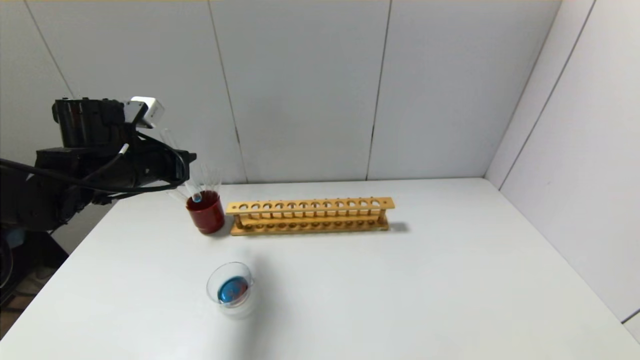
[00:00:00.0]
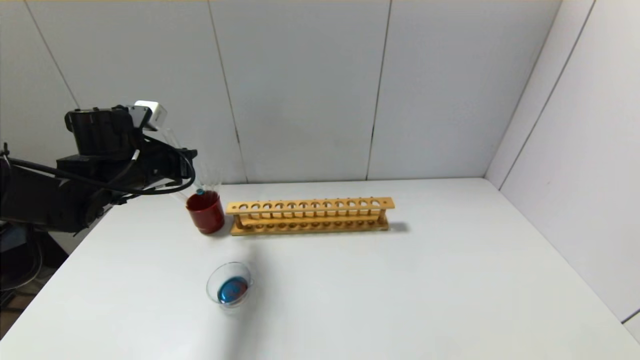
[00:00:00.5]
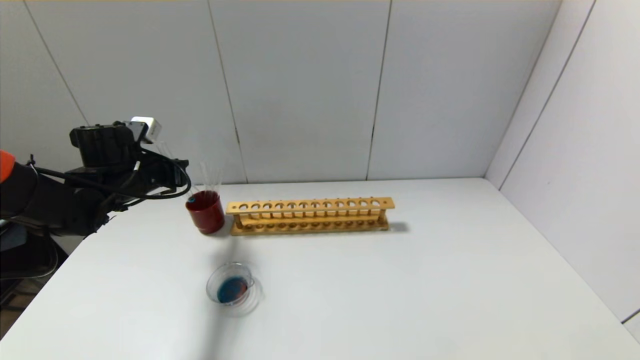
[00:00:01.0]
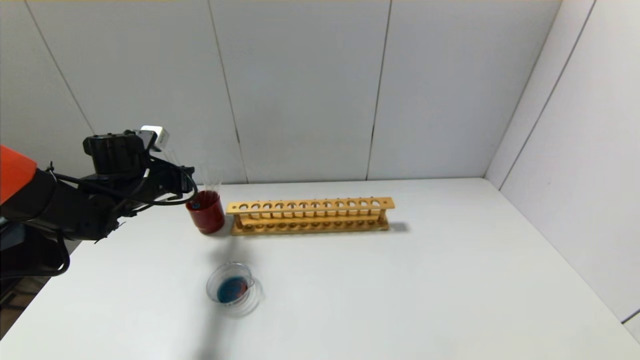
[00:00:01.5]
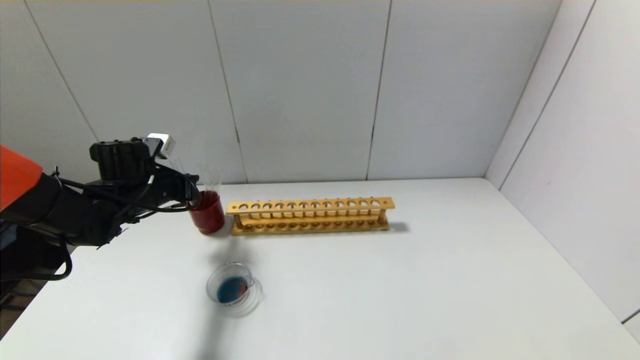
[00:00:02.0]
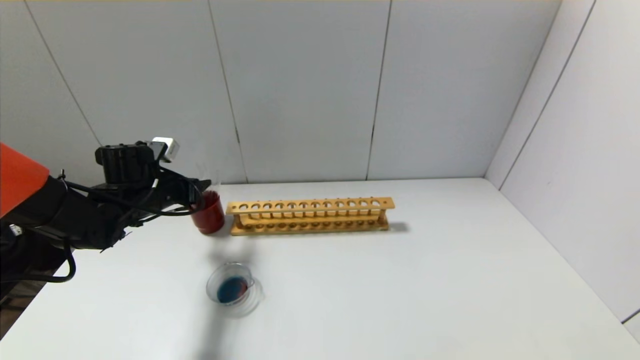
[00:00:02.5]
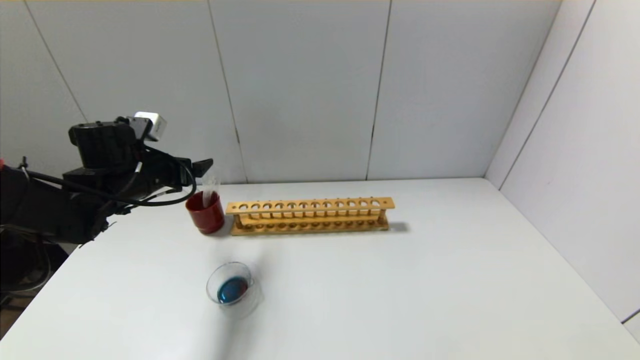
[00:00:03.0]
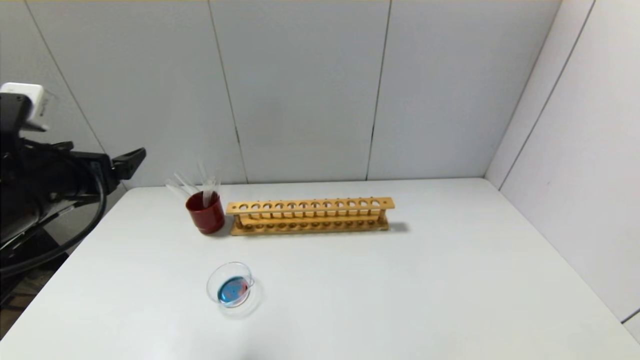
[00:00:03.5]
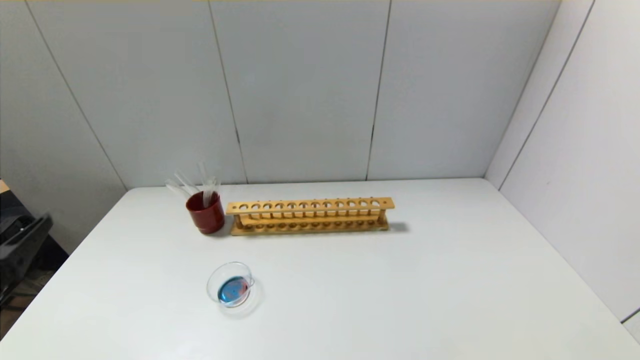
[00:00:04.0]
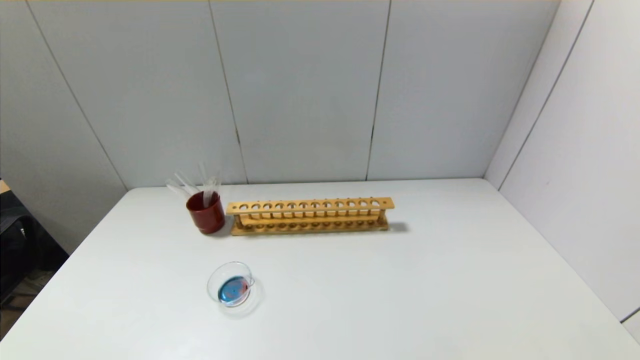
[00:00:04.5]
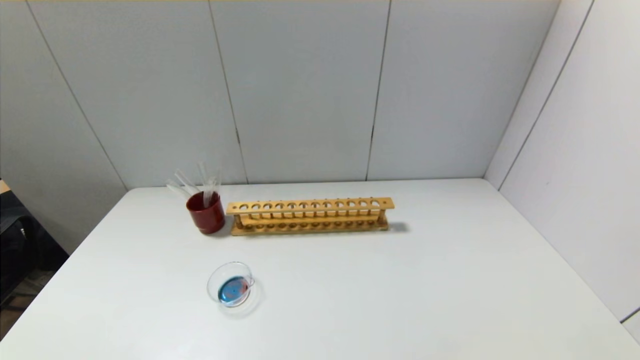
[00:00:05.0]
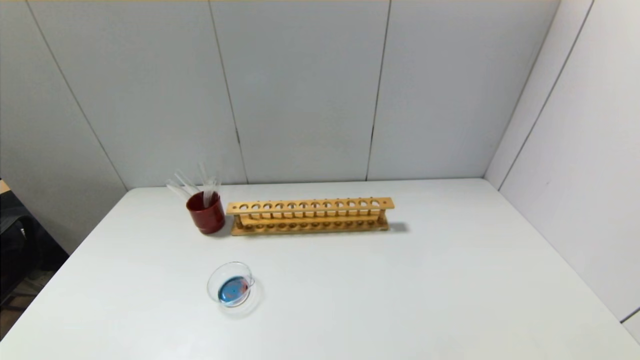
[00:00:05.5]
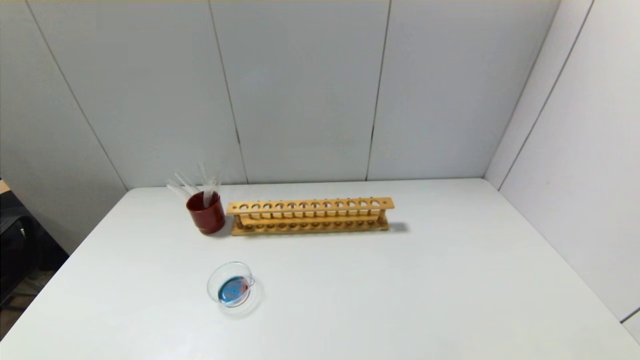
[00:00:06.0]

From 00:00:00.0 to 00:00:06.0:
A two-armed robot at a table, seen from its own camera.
Step, from 00:00:00.0 to 00:00:02.0: Place the test tube into the brown cup with the left gripper.
From 00:00:00.0 to 00:00:02.0: The left gripper heads downward, covering some 10 cm.
From 00:00:02.0 to 00:00:04.0: The left gripper goes about 30 cm backward, and opens.
